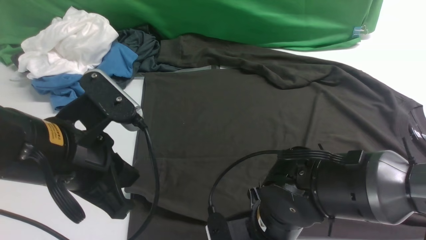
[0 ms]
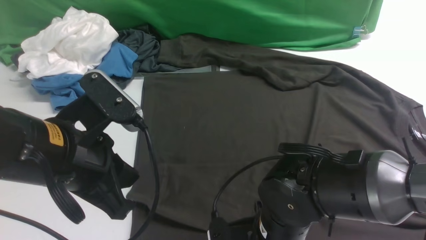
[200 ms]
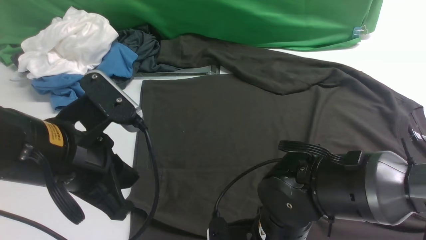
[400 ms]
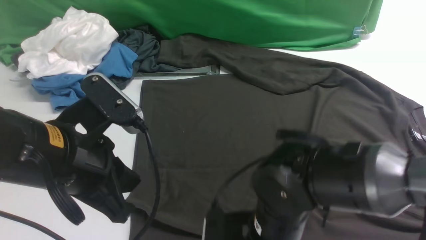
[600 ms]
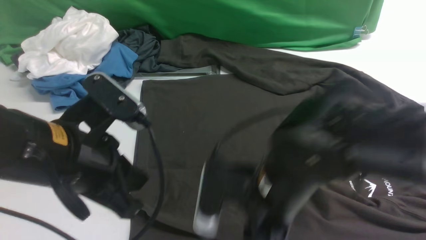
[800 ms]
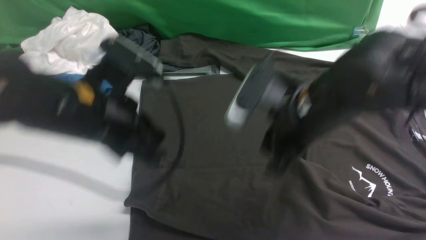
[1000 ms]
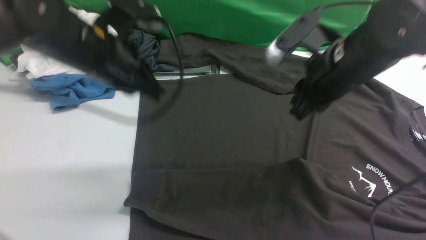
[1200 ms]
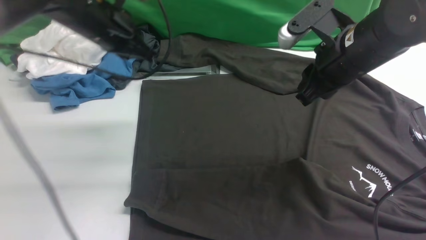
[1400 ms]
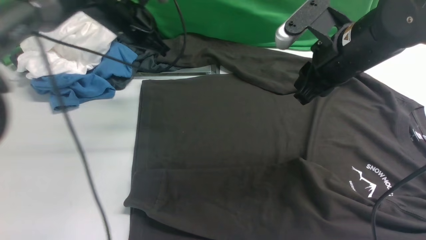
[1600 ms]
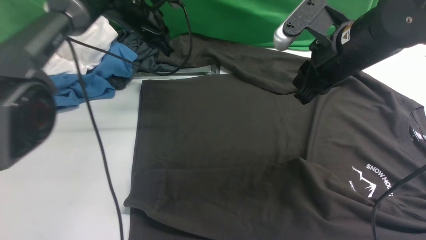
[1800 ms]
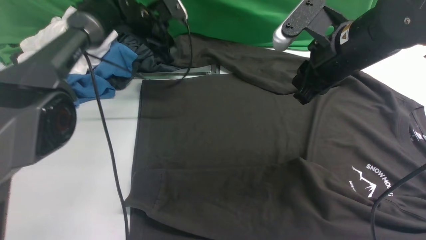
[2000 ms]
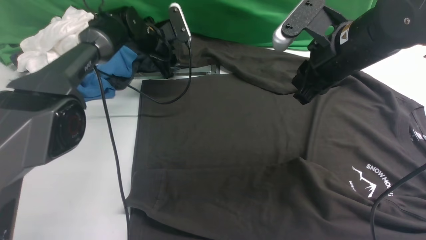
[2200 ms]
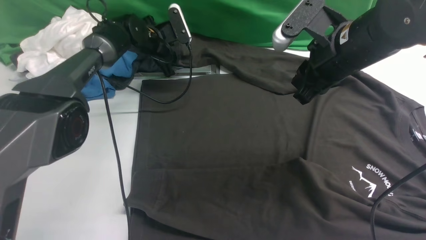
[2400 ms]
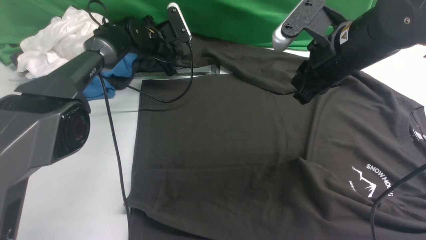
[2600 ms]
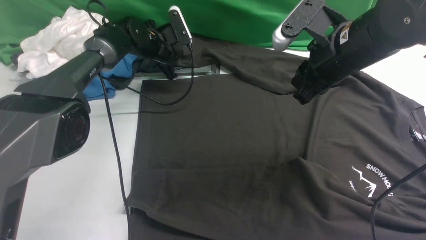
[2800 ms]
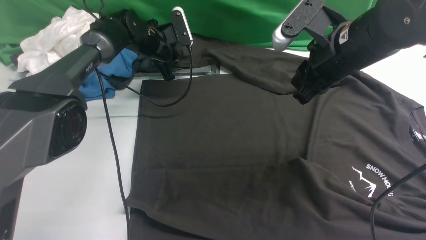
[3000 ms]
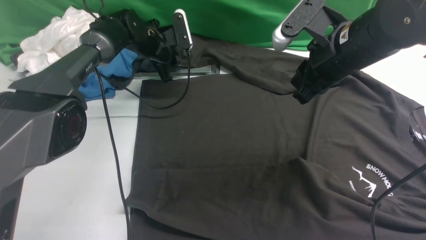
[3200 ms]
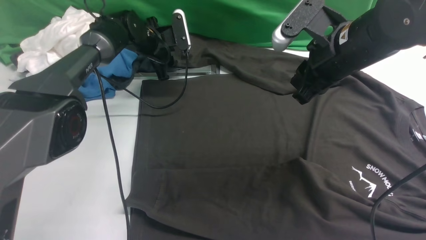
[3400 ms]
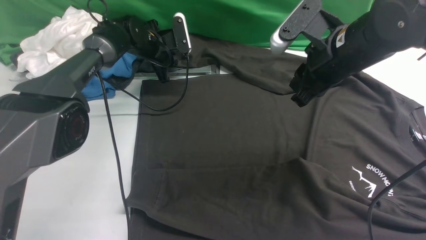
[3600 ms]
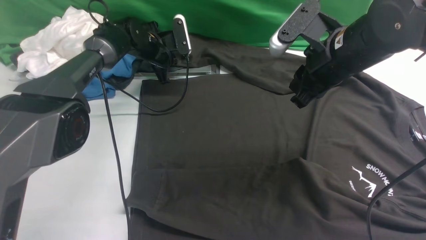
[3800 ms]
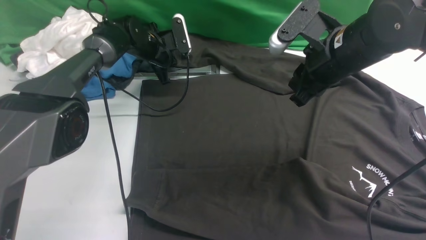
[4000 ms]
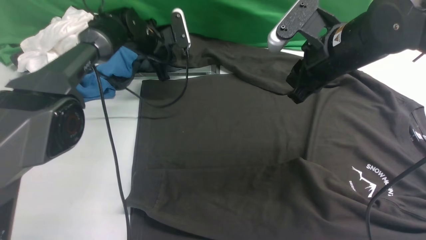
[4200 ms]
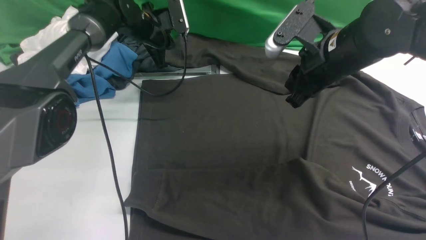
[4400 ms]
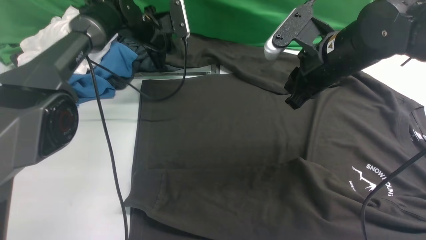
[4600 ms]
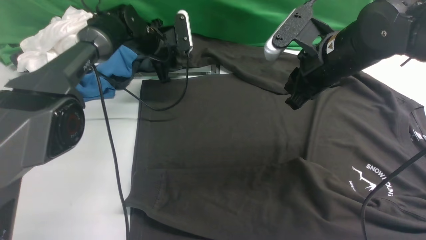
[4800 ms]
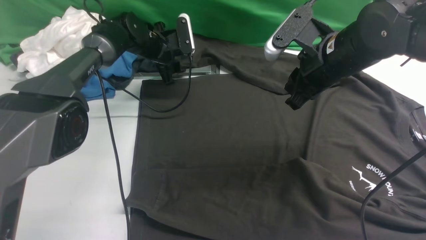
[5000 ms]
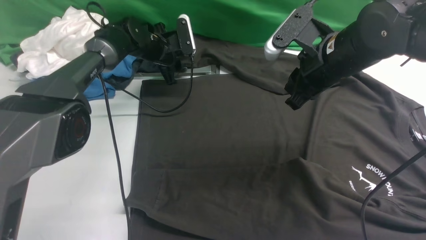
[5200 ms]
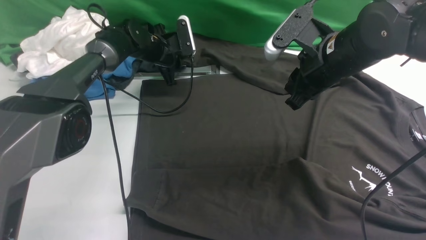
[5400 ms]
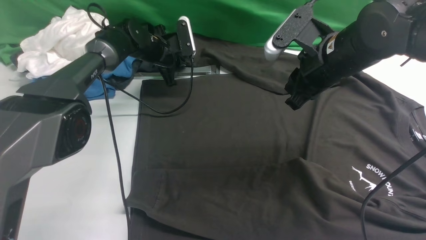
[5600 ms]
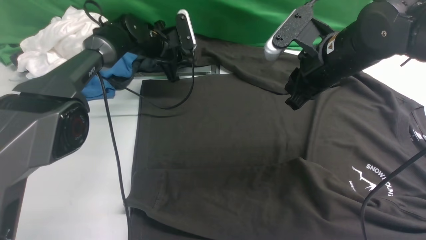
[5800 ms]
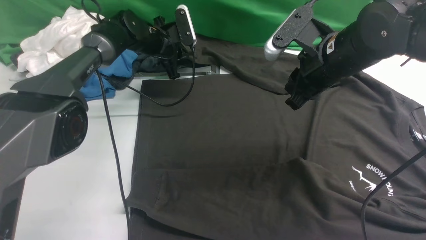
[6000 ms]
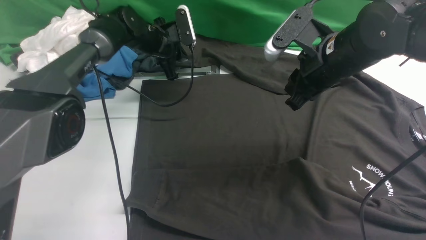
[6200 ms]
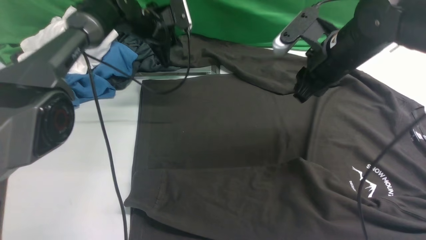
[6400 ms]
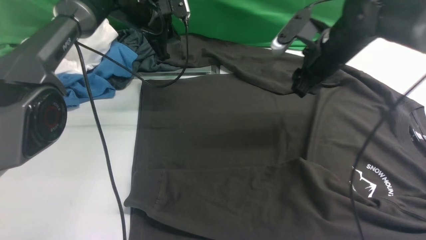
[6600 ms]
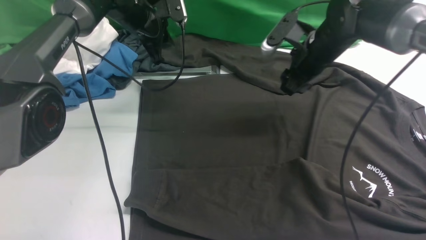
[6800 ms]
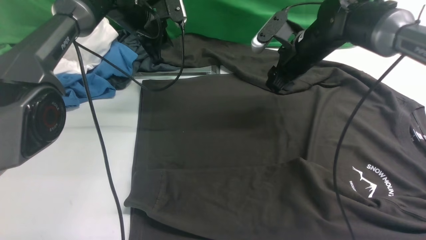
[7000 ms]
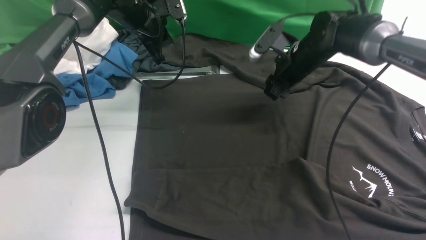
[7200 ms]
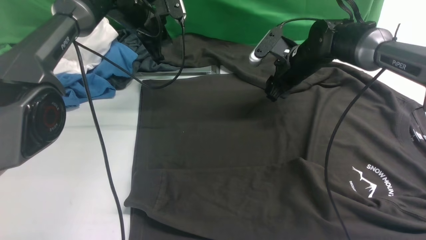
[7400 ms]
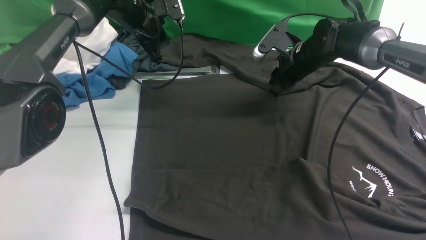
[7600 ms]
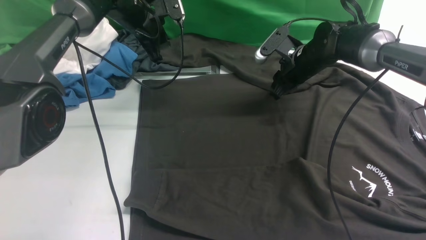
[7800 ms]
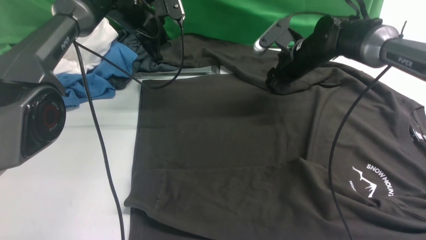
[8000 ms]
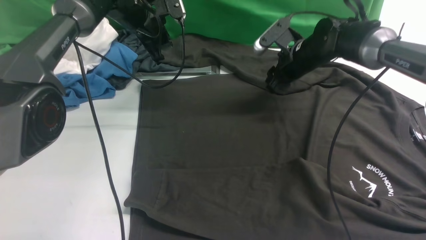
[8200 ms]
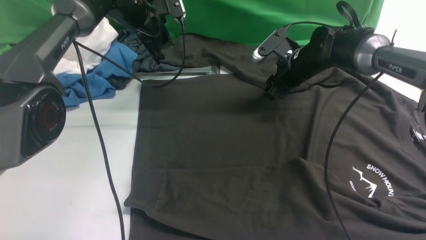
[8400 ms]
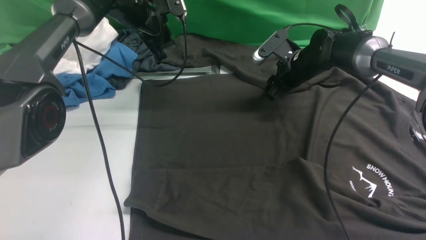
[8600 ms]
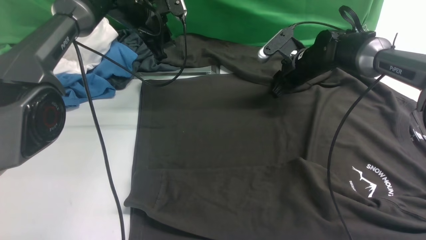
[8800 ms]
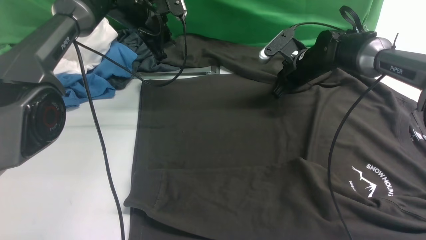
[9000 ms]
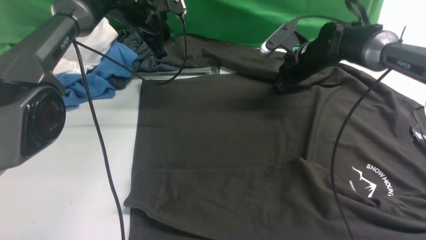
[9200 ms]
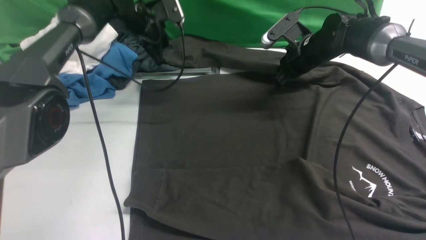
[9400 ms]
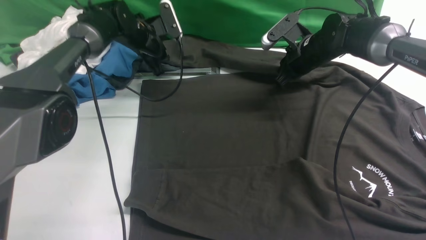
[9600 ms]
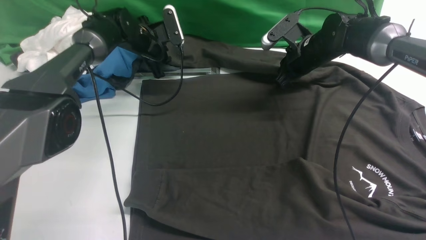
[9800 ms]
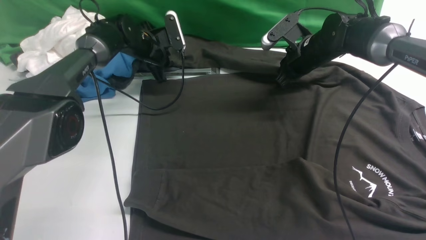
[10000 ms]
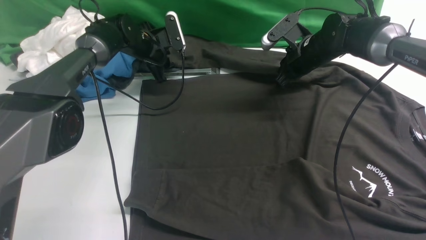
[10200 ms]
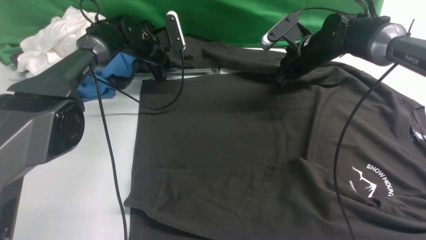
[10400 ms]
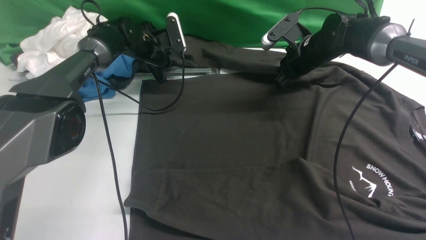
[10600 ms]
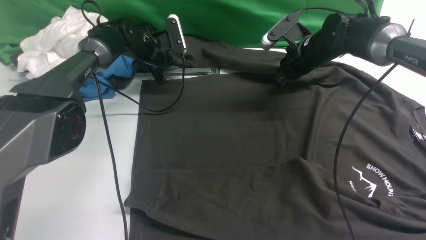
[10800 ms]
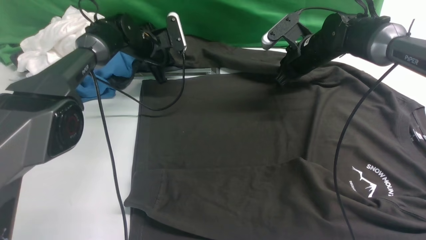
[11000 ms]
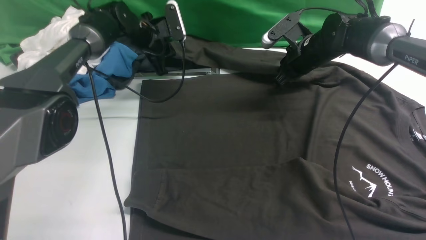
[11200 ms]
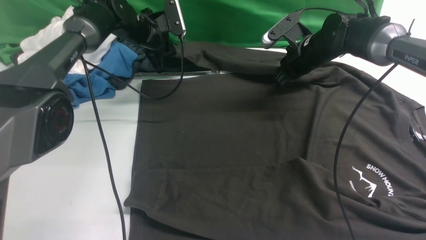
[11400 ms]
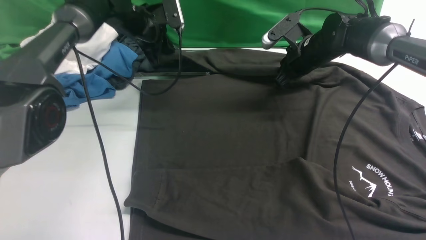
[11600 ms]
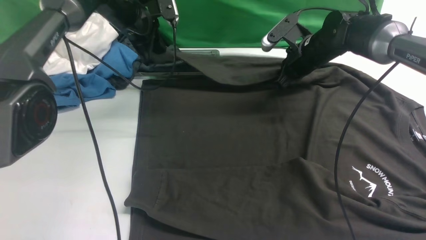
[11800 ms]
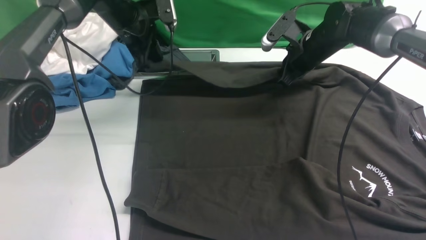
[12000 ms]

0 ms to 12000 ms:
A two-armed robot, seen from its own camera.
Step, 1000 ms to 11400 ms: use the left arm to clamp the cuff farthest from it.
0 ms to 1600 ms: The right gripper heads forward, upward and to the right, covering some 25 cm, while the left gripper heads forward, covering approximately 30 cm.
1600 ms to 3000 ms: The left gripper heads downward and forward, covering about 15 cm, and opens, then closes once more.
3000 ms to 4400 ms: The left gripper opens and closes again.
4400 ms to 6000 ms: The left gripper opens, then closes again.
6000 ms to 7600 ms: The left gripper shifts some 5 cm upward, while the right gripper is displaced forward and downward by approximately 15 cm.
7600 ms to 9000 ms: There are only small adjustments of the grippers.
9000 ms to 10400 ms: The left gripper heads downward, covering about 10 cm.
10400 ms to 12000 ms: The left gripper travels upward and backward by about 10 cm, and closes up.

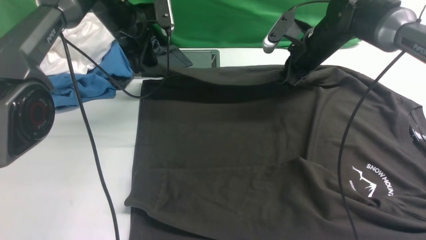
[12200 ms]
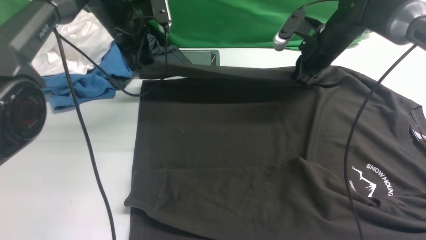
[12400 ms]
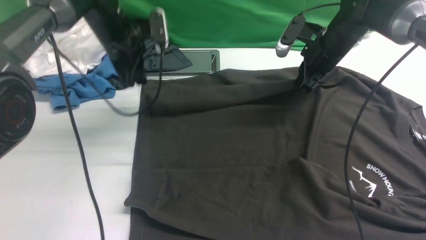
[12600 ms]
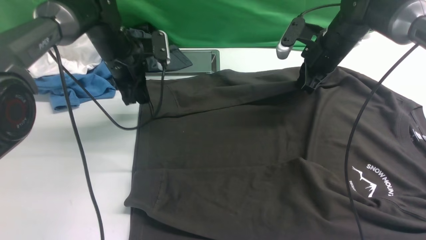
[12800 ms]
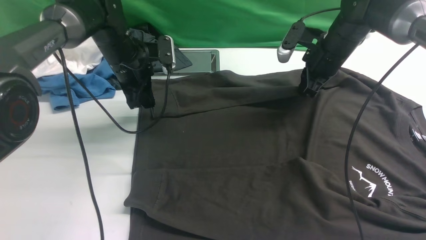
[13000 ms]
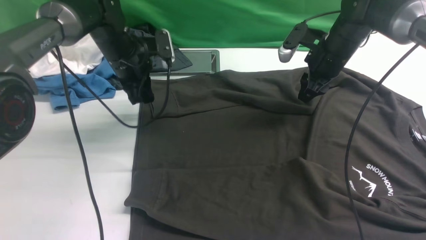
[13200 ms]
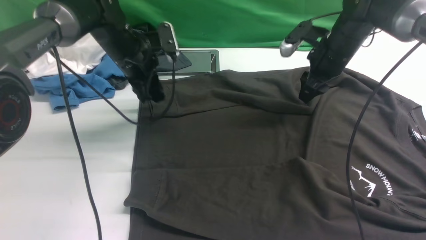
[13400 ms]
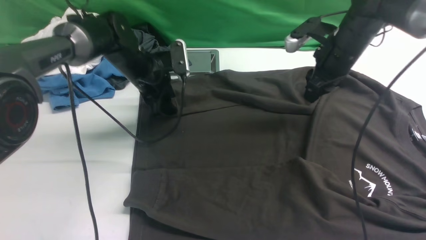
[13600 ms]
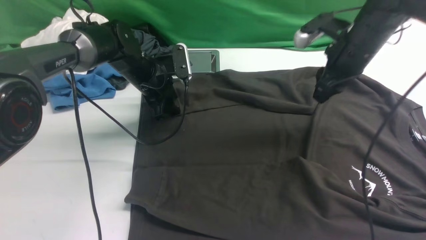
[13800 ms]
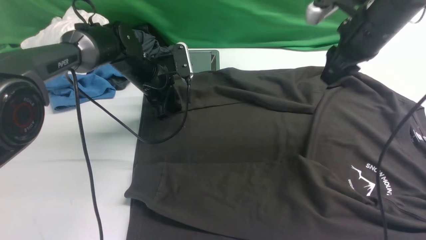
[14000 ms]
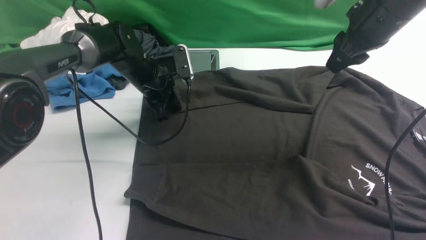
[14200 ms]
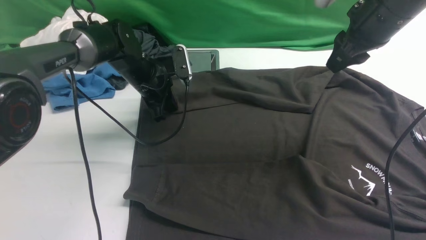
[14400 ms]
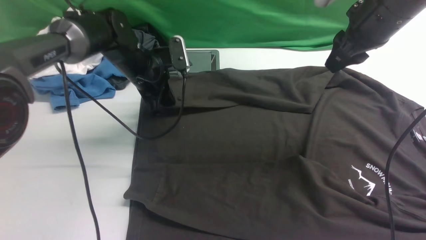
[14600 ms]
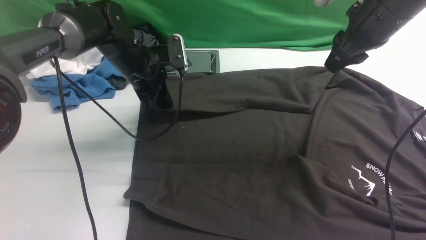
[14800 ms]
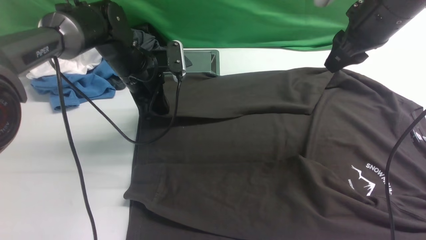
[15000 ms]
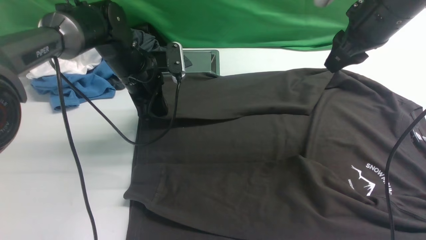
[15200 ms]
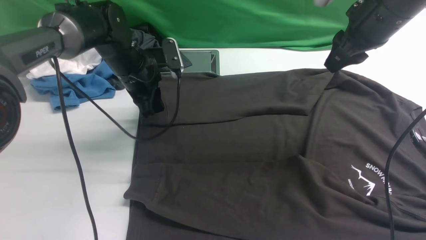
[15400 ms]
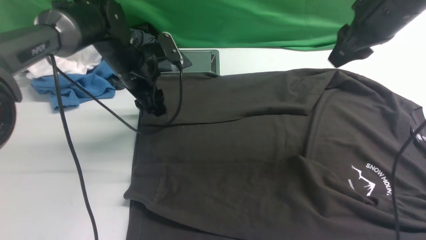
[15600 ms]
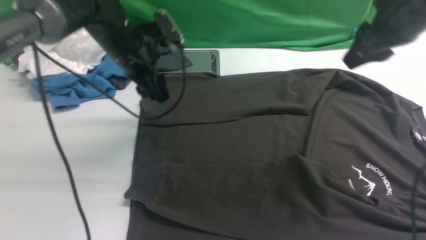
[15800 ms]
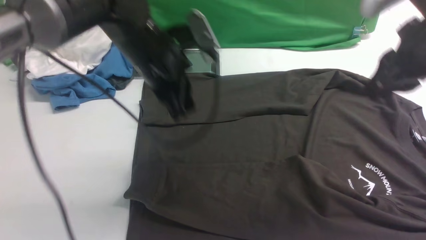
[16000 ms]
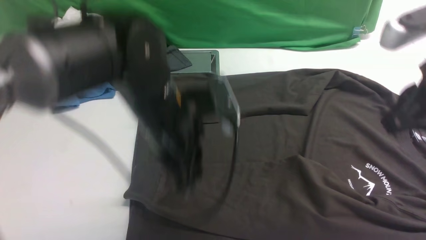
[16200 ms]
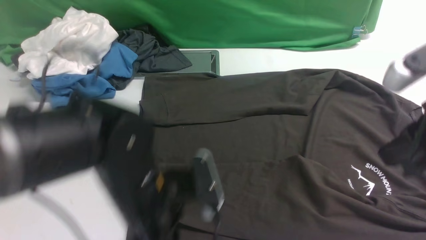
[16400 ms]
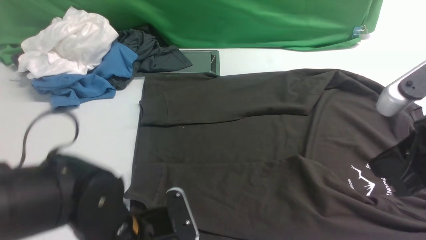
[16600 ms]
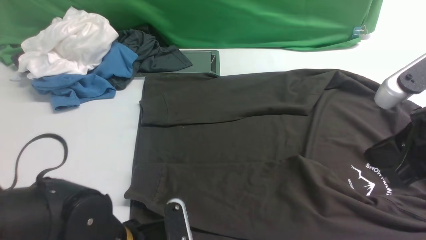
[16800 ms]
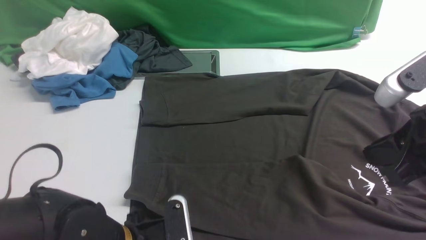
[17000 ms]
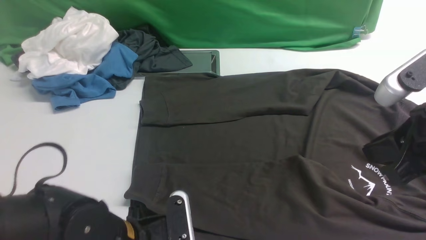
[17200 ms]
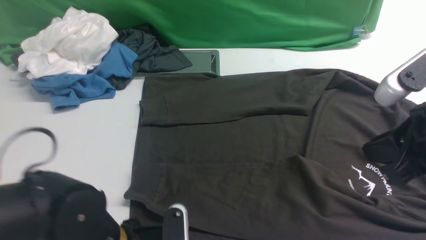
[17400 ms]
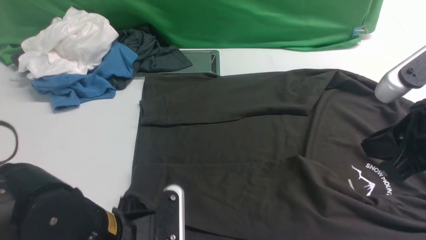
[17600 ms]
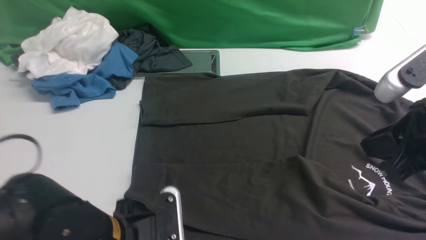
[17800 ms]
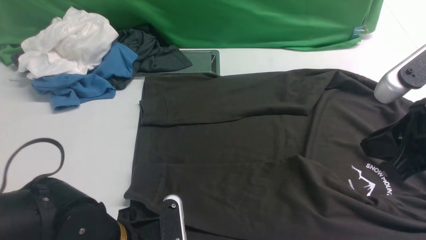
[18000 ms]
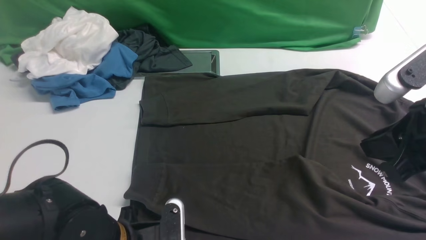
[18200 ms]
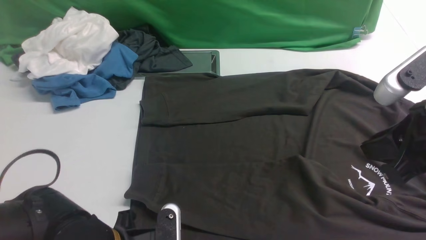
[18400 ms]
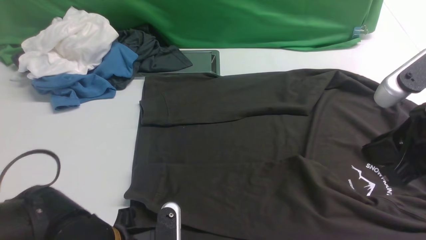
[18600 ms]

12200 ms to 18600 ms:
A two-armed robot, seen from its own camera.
Step, 12200 ms to 15800 ms: use the left arm to drag and drop the cuff onto the cuff closest to the left arm.
12200 ms to 13800 ms: The left gripper shifts approximately 10 cm downward, and opens its fingers; the right gripper shifts some 10 cm backward and upward, and opens.
13800 ms to 15400 ms: The left gripper shifts by some 5 cm, and closes. The right gripper heads upward, covering some 5 cm.
15400 ms to 17000 ms: The left gripper is displaced backward by about 30 cm, and opens. Meanwhile the right gripper goes about 20 cm backward.
17000 ms to 18600 ms: The left gripper closes.
